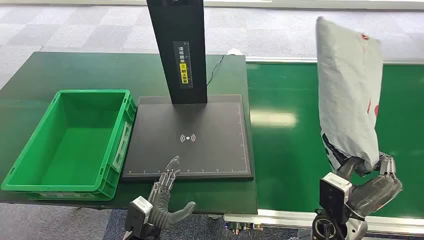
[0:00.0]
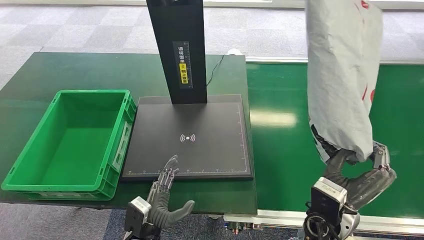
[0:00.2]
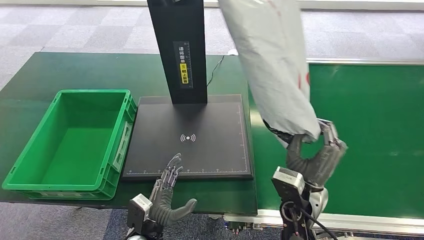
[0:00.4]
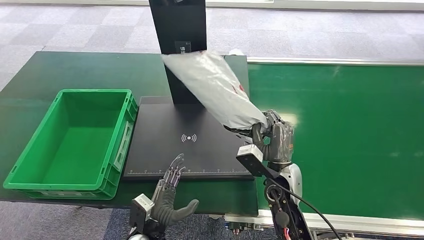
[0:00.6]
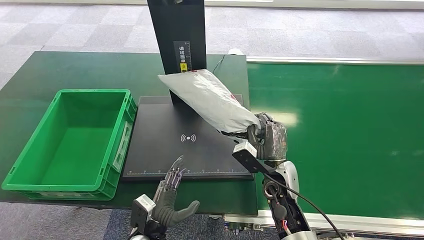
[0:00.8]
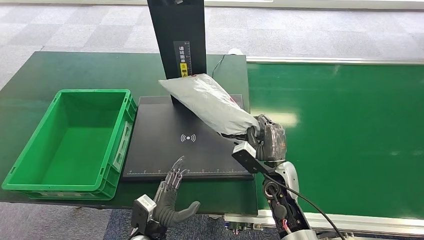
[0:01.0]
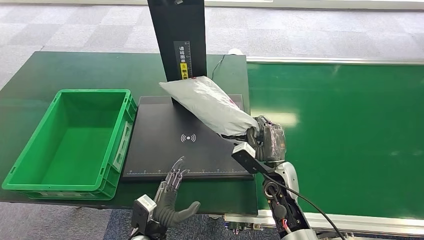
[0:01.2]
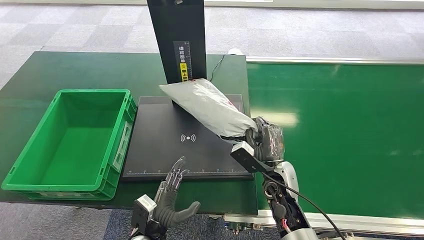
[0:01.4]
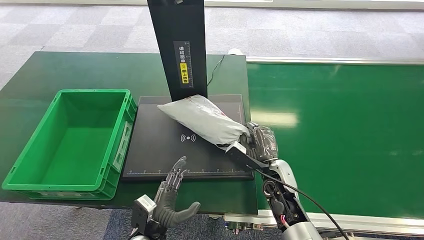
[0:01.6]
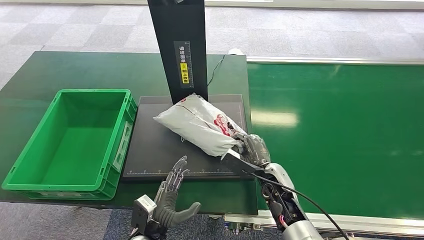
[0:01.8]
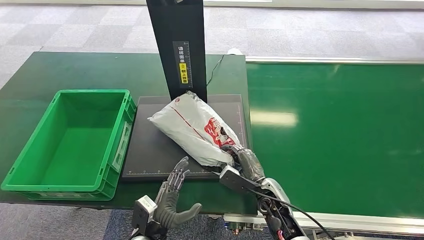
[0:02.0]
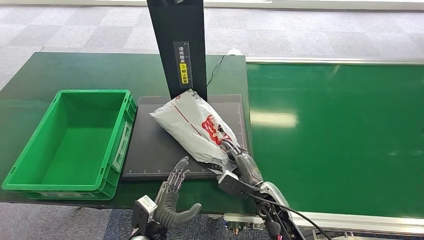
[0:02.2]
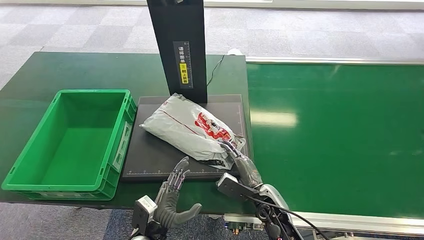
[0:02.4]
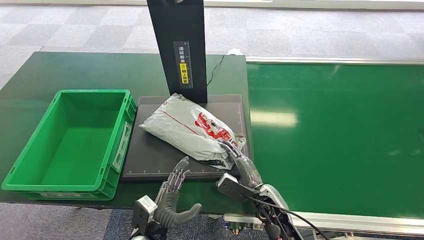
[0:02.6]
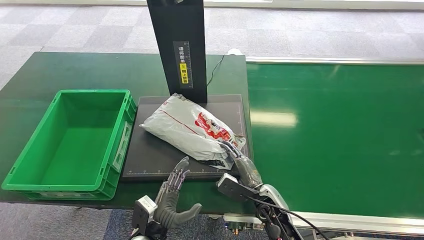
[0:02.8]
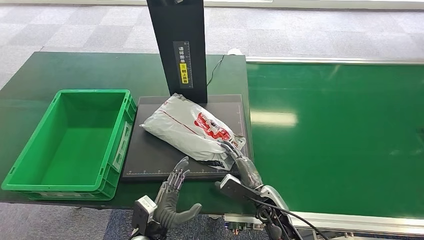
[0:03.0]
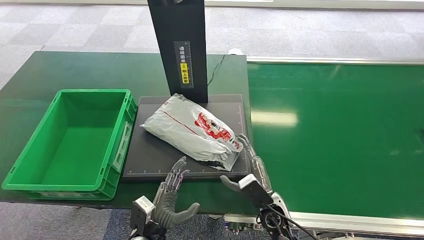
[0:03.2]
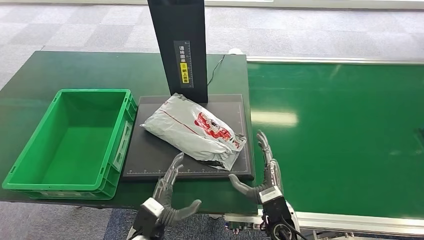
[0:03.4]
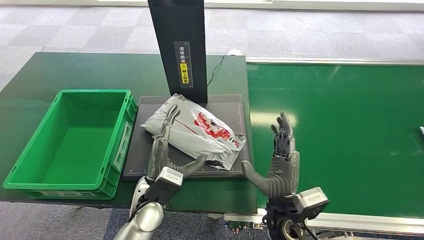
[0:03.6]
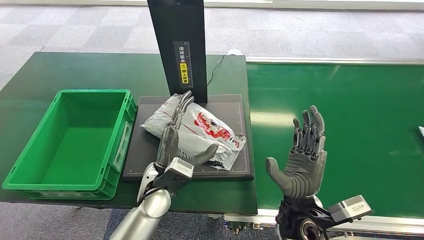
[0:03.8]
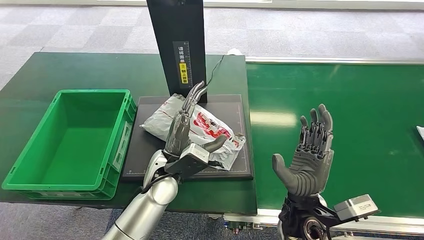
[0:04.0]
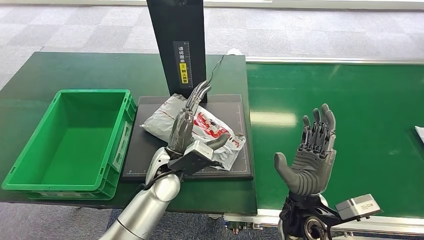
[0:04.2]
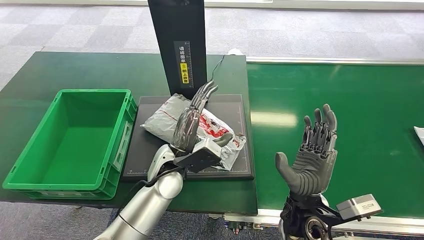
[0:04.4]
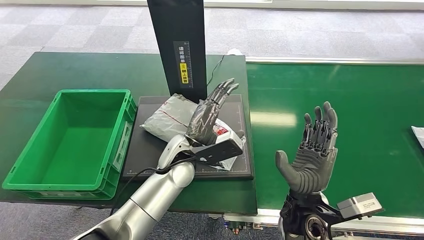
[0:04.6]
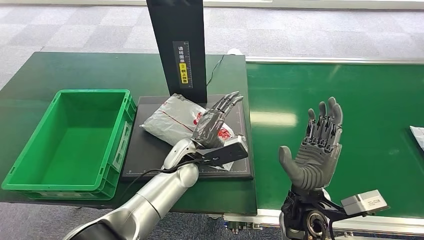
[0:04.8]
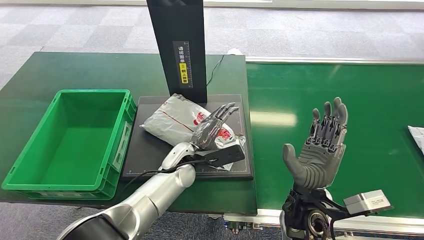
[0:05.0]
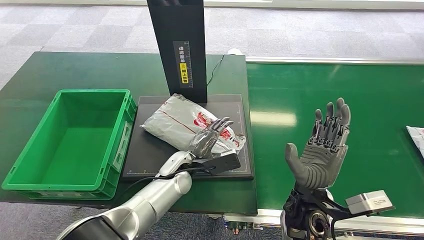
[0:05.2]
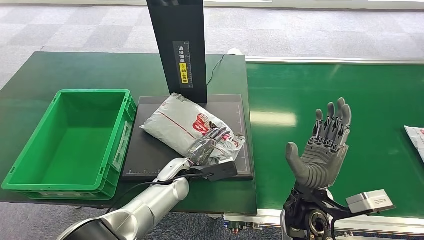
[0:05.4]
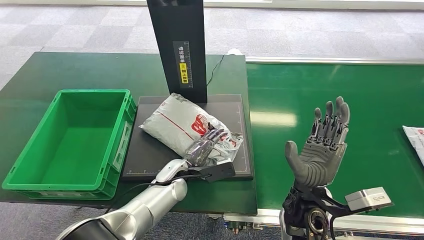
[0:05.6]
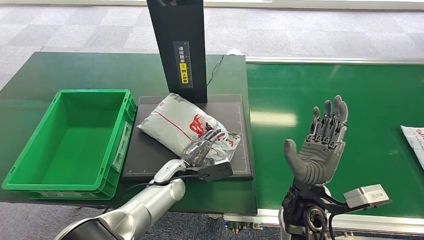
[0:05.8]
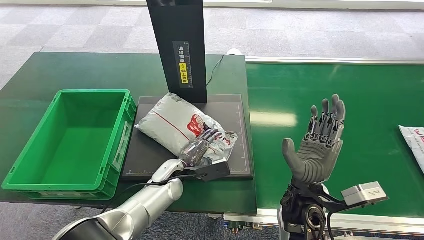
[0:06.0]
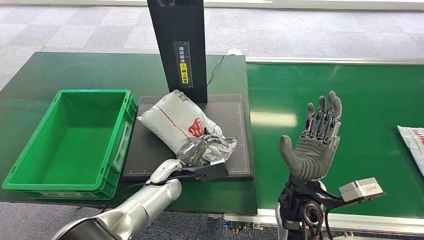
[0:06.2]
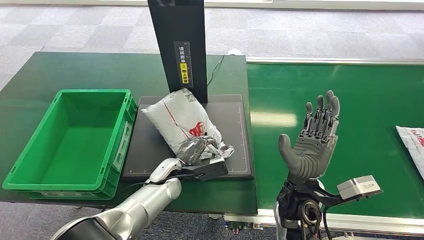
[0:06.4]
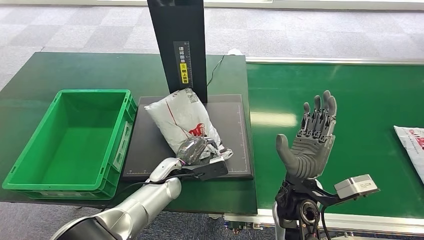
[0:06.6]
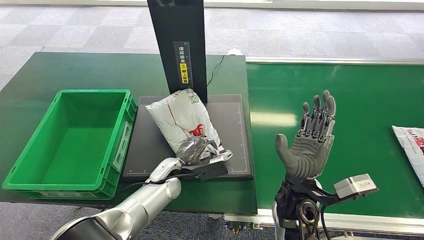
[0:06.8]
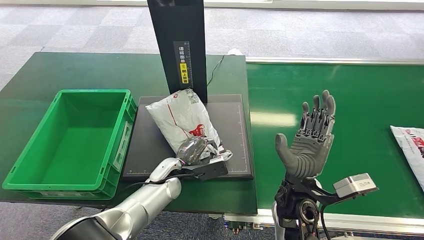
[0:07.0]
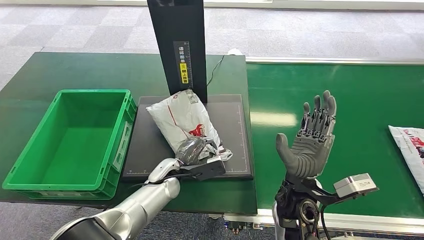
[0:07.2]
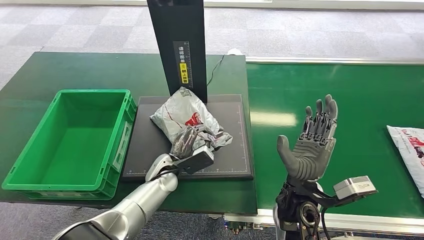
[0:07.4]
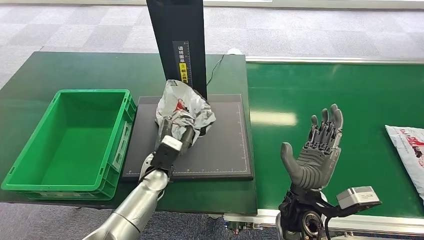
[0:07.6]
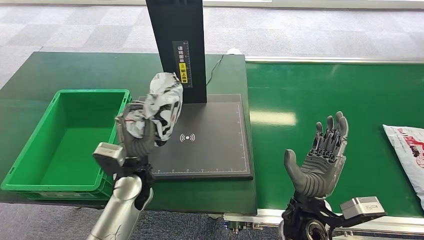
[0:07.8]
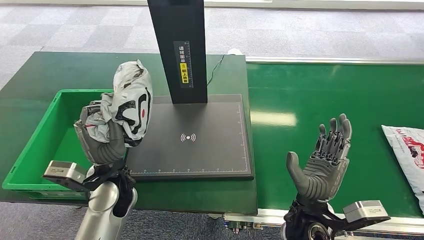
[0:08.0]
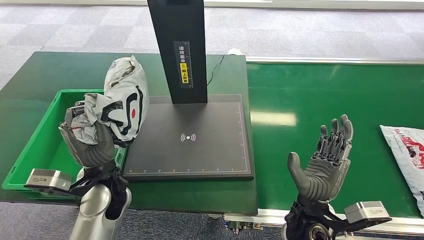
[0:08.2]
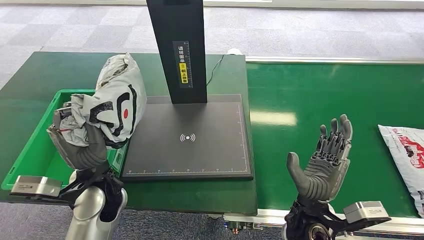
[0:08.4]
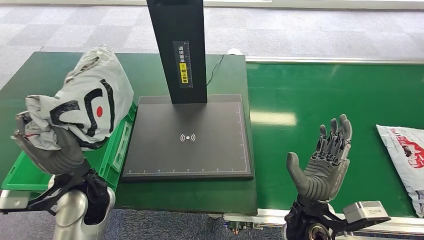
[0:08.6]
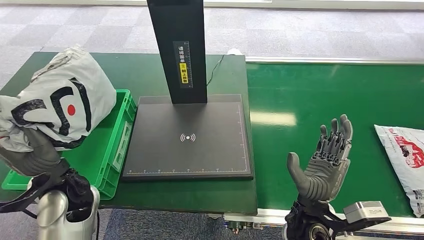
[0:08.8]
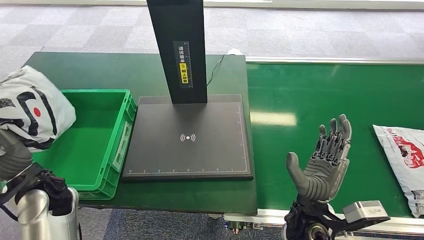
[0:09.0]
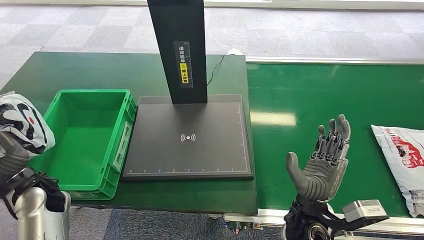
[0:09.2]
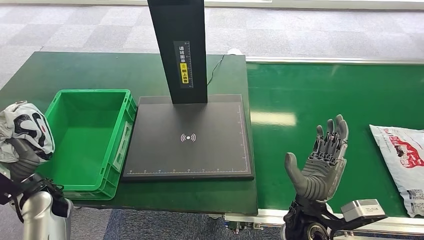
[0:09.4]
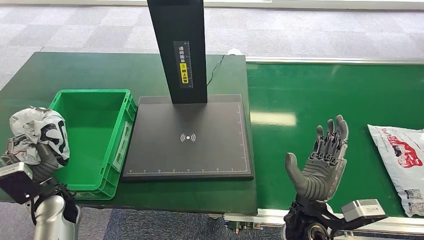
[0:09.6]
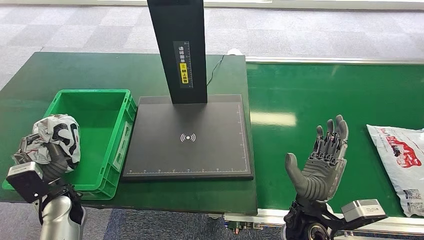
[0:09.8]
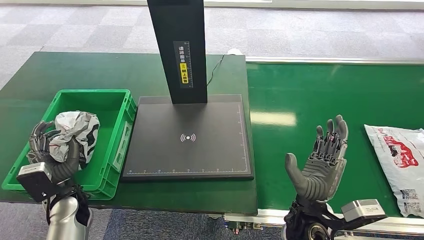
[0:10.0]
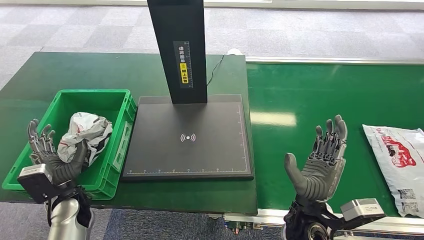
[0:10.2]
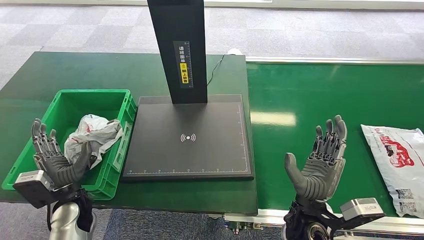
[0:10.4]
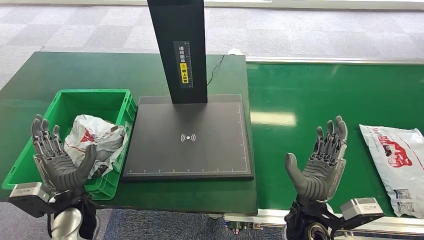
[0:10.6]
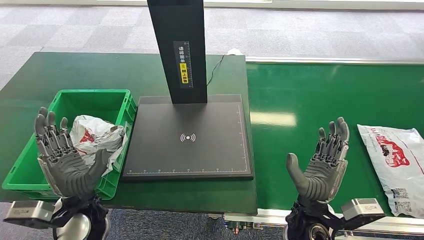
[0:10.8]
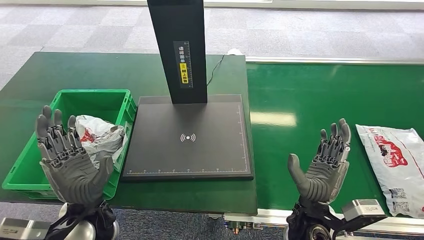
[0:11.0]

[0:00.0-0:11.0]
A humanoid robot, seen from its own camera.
Step, 0:10.8 to 0:11.0: Place the package into the parcel locker.
0:01.6 to 0:03.2: The right hand shifts some 10 cm backward.
0:03.2 to 0:04.8: The right hand travels upward by some 15 cm; the left hand moves forward, upward and to the right, roughly 25 cm.
0:04.8 to 0:06.2: The left hand heads downward and to the left, covering roughly 10 cm.
0:07.8 to 0:09.4: The left hand shifts some 20 cm to the left.
0:09.4 to 0:11.0: The left hand travels to the right by about 15 cm.
